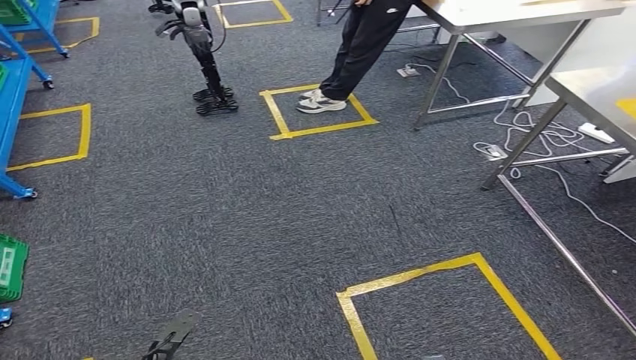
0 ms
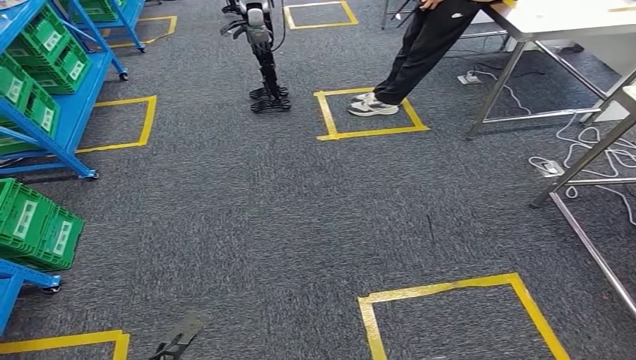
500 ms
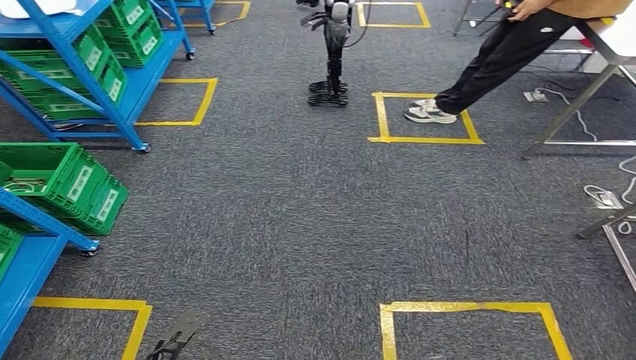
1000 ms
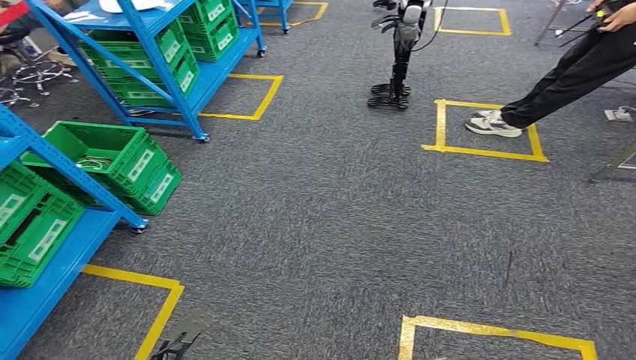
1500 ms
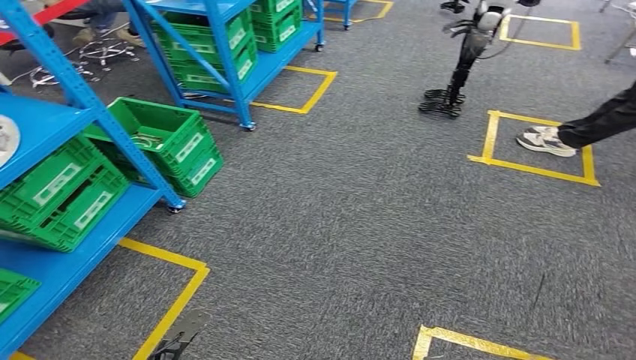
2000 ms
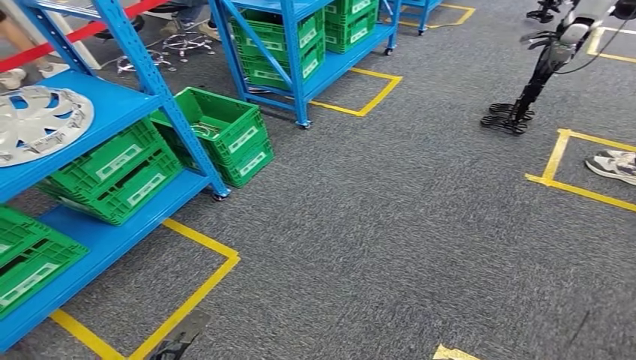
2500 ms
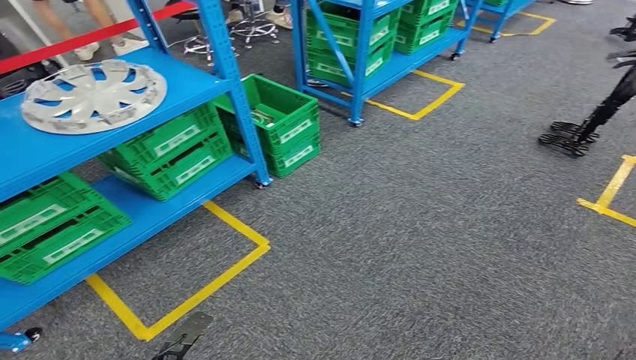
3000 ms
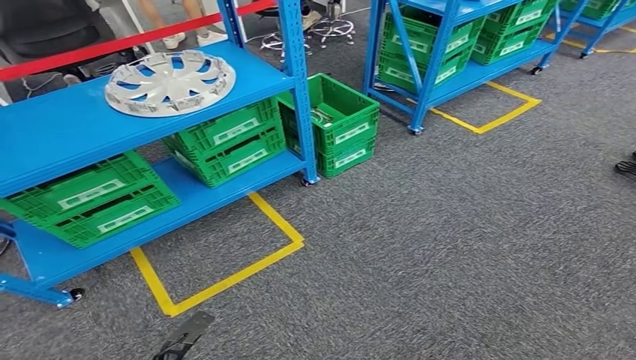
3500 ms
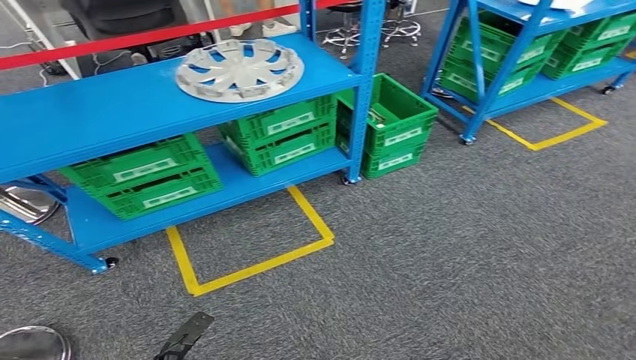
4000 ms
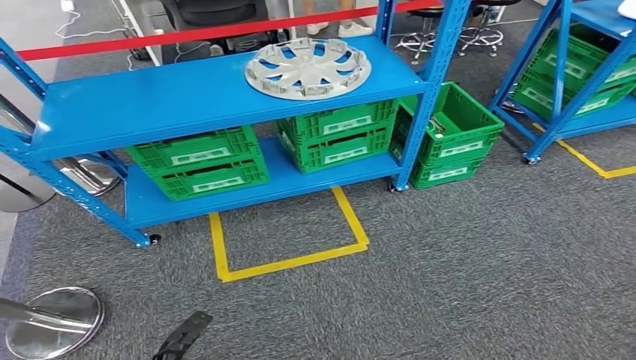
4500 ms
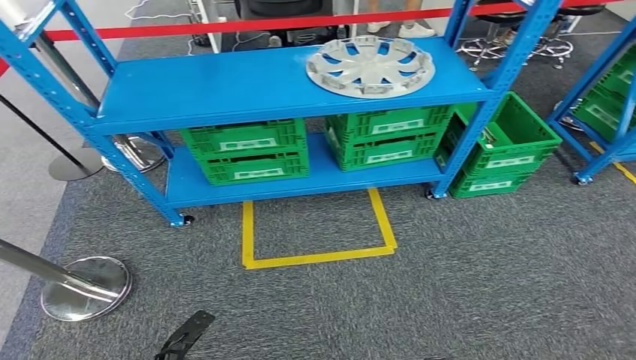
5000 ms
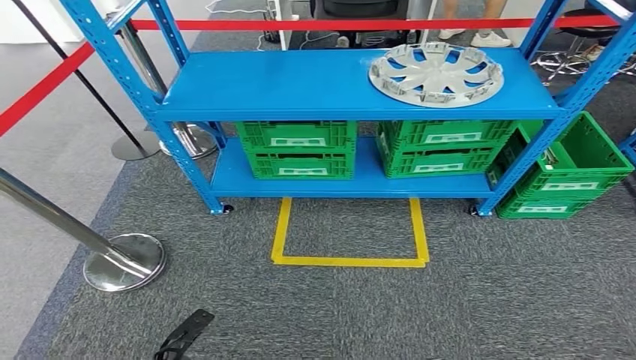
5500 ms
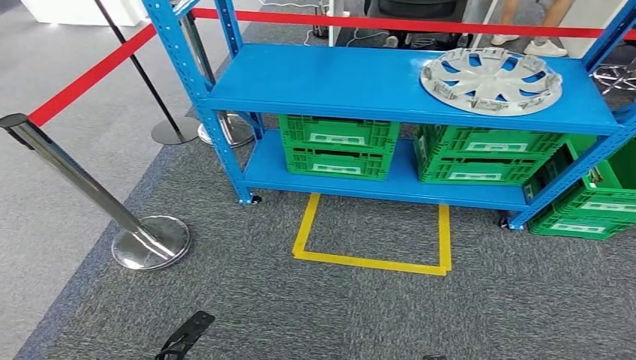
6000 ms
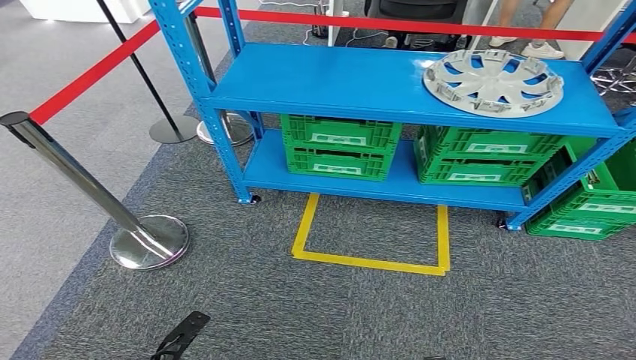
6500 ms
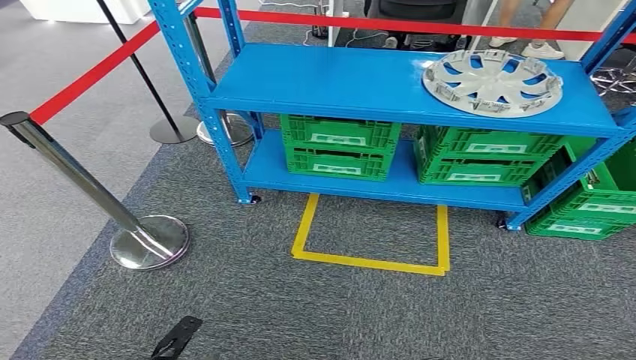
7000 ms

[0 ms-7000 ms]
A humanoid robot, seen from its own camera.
Step, 0 ms to 6500 ms: Move to the initial position at the workbench.
